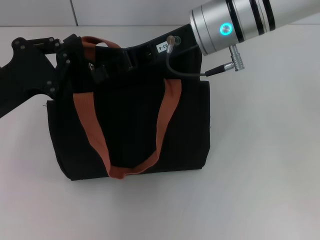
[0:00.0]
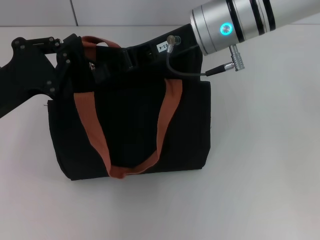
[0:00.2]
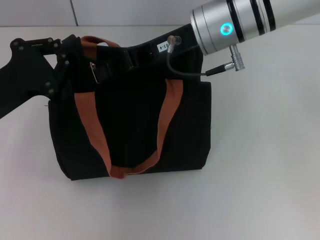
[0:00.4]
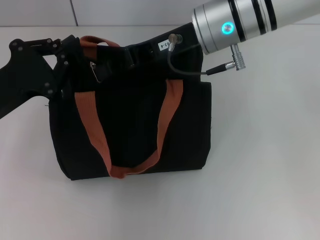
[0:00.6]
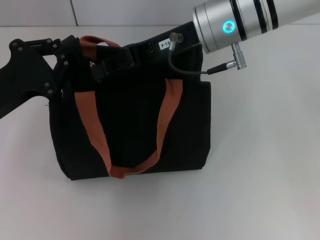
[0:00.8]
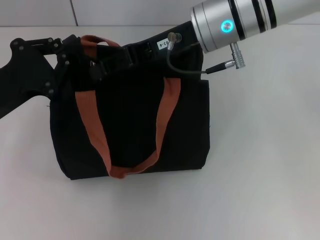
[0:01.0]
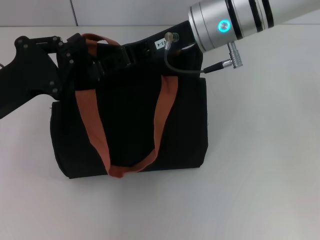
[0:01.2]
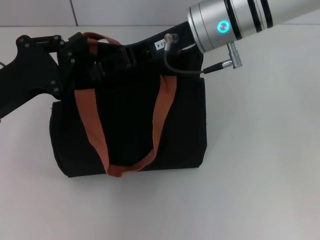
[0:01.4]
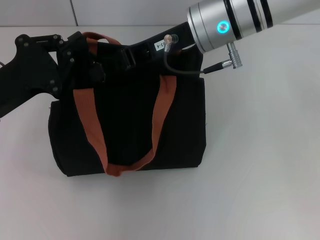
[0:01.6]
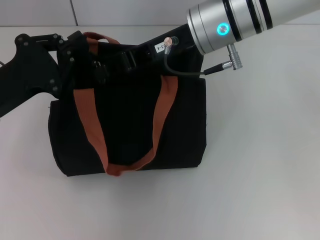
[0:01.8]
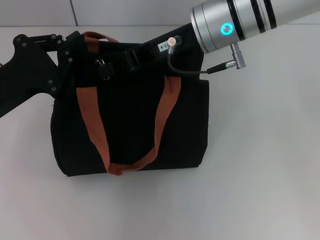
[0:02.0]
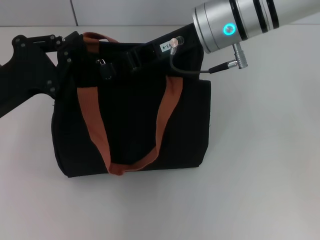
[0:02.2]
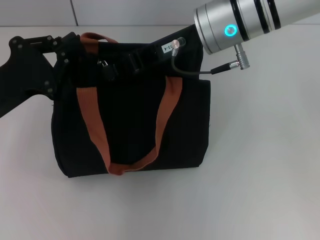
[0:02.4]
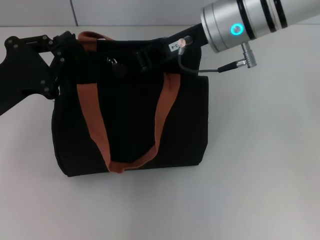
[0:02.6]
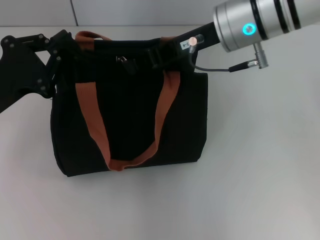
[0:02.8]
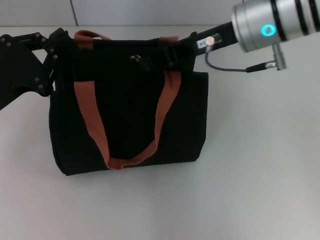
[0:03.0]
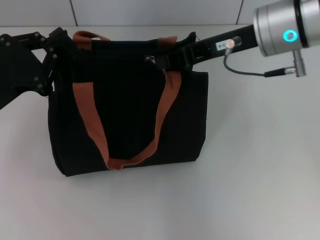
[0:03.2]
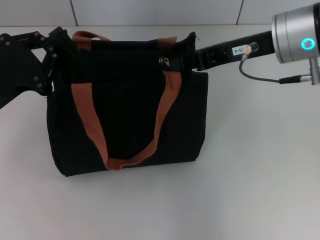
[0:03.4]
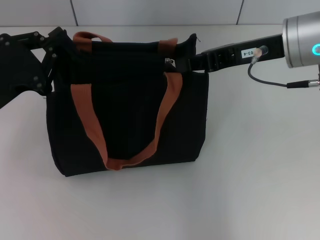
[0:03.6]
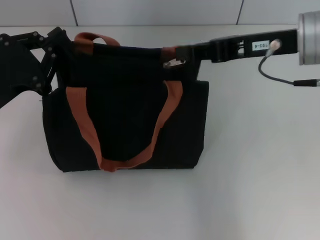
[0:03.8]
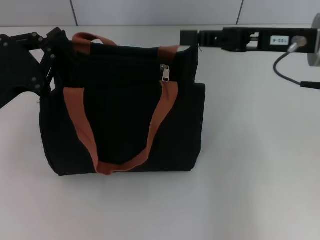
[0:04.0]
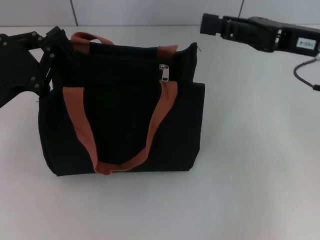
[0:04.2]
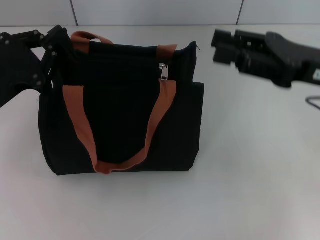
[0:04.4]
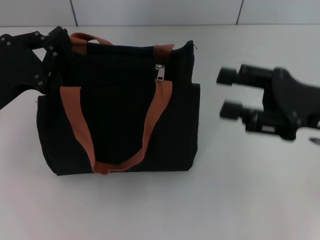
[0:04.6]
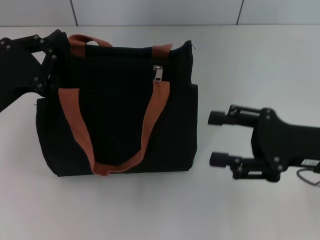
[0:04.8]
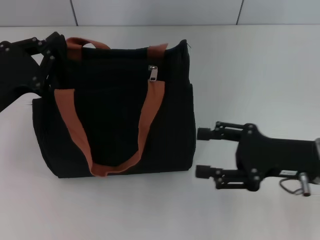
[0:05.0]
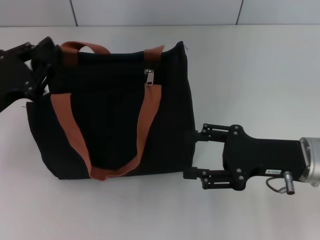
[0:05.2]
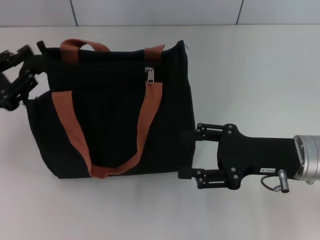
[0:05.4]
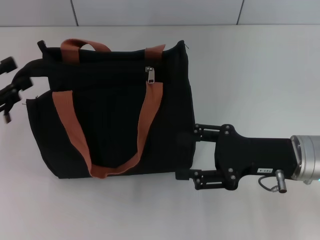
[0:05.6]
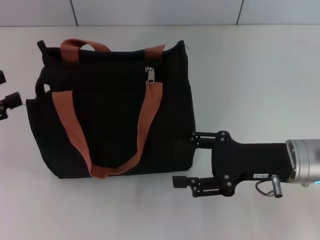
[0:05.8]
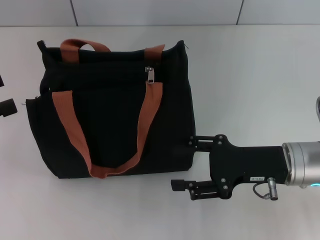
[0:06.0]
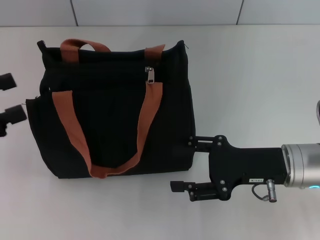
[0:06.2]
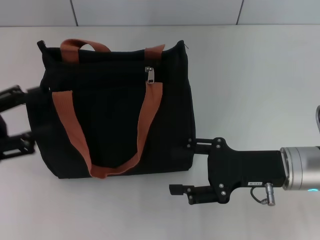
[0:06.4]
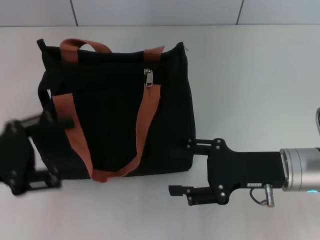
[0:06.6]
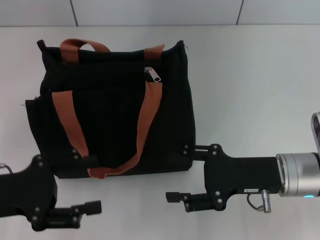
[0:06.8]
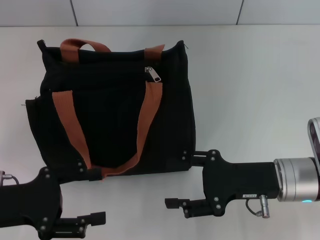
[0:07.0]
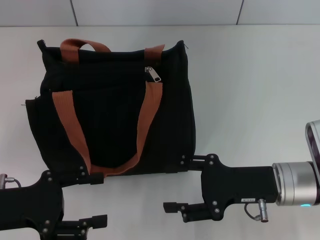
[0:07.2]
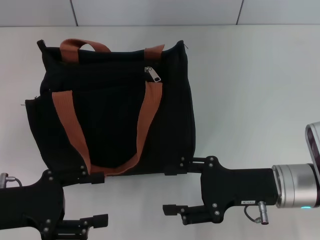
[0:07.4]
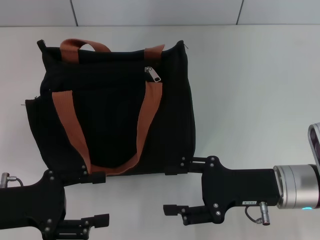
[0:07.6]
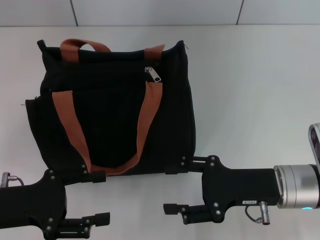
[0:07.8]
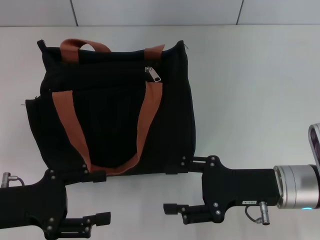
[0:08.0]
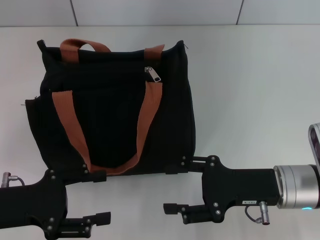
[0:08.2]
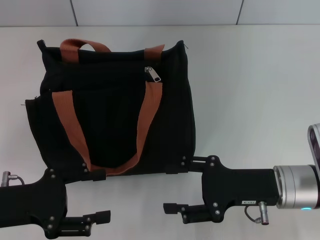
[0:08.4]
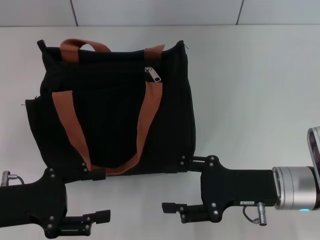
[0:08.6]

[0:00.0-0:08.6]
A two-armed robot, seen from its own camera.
Step, 0:00.0 to 0:03.8: Pull up the zipper with your right hand.
Step, 0:04.0 to 0:05.6: Grab the zipper with your left hand.
0:00.0 to 0:01.4: The two grippers keep their place.
0:01.4 to 0:02.8: The right gripper closes its fingers.
0:02.8 to 0:04.4: The right gripper heads to the right and backward, covering approximately 15 cm.
0:04.4 to 0:05.8: The left gripper travels to the left by some 10 cm, and opens up. Meanwhile the right gripper heads downward, covering about 10 cm, and opens.
0:05.8 to 0:07.2: The left gripper moves to the right, about 10 cm.
0:07.2 to 0:08.6: Neither gripper changes place.
